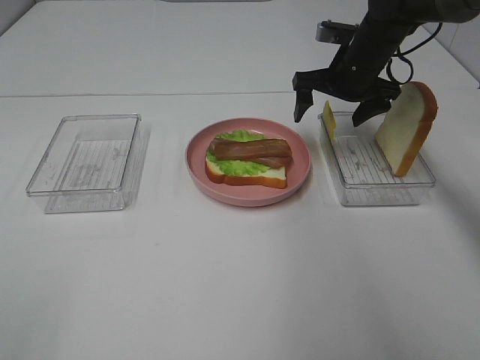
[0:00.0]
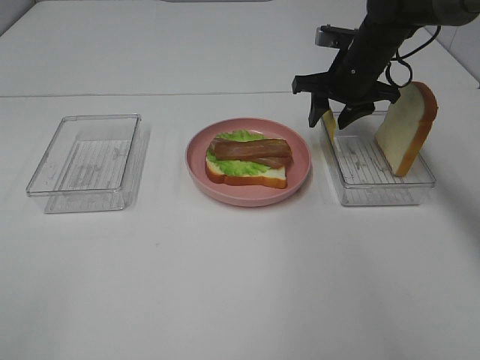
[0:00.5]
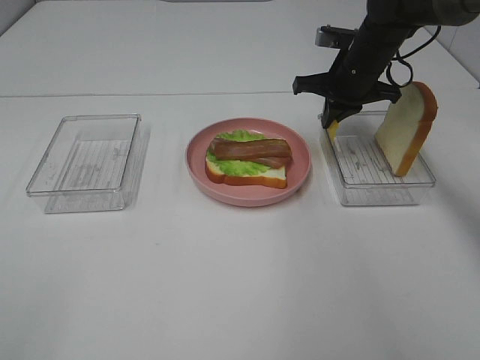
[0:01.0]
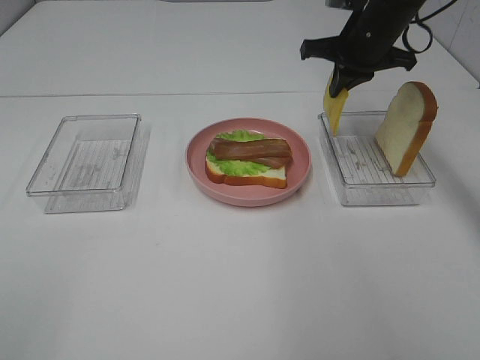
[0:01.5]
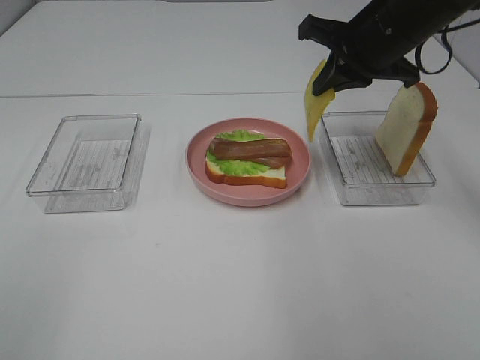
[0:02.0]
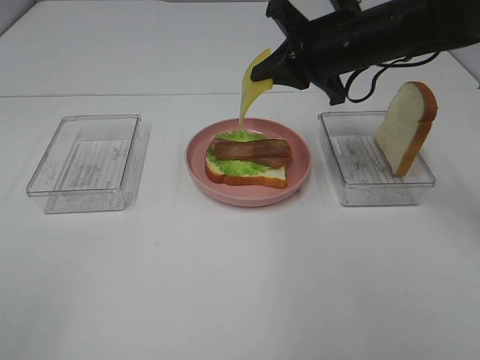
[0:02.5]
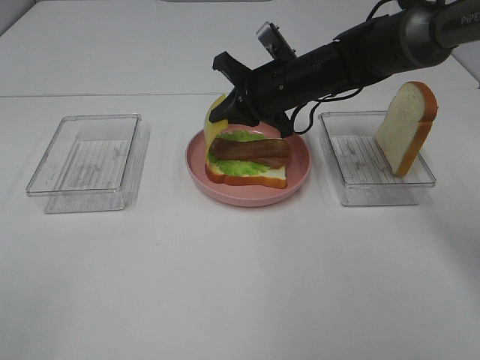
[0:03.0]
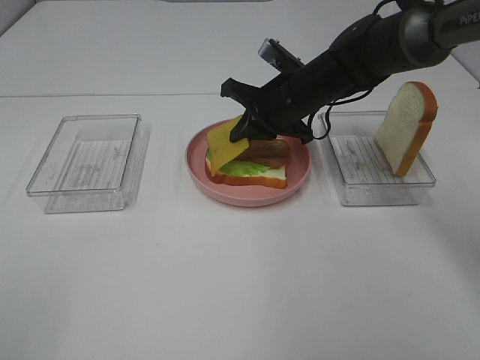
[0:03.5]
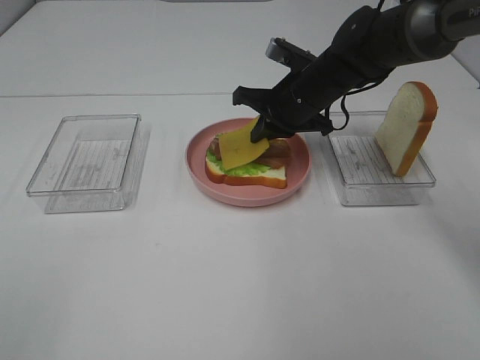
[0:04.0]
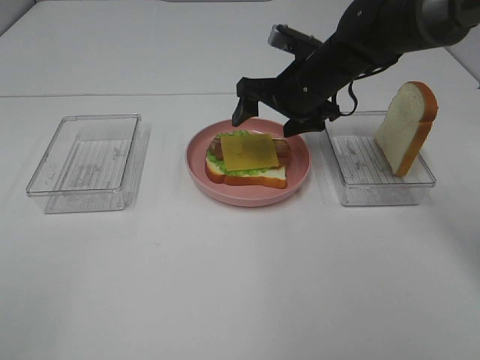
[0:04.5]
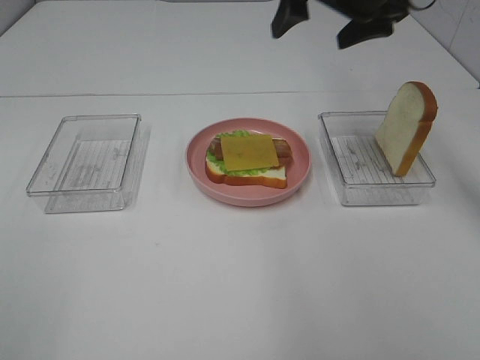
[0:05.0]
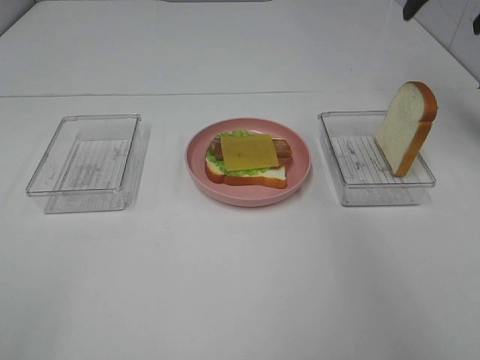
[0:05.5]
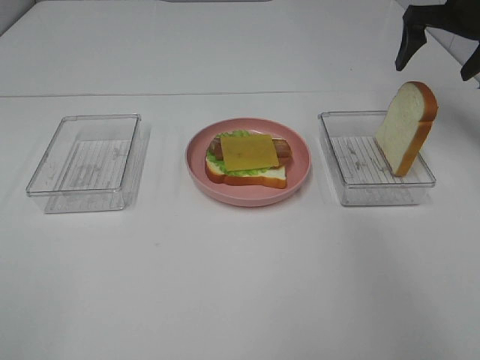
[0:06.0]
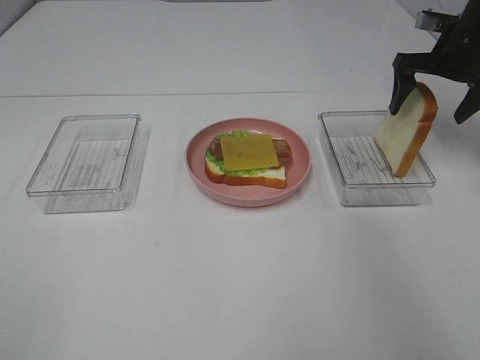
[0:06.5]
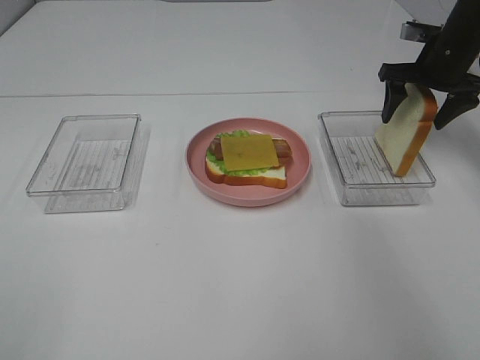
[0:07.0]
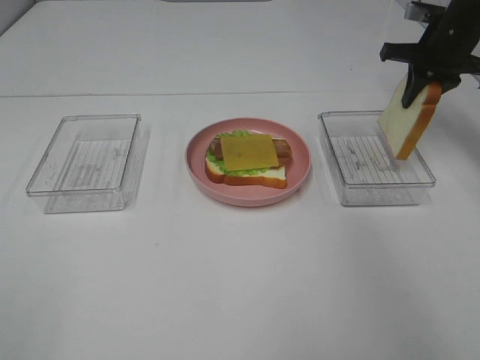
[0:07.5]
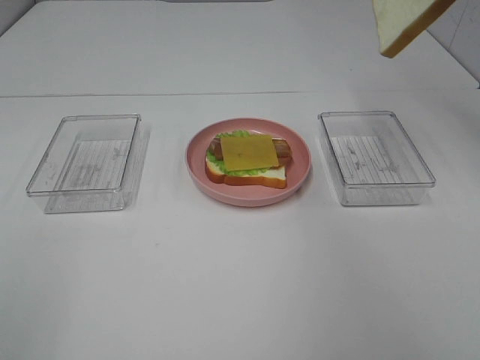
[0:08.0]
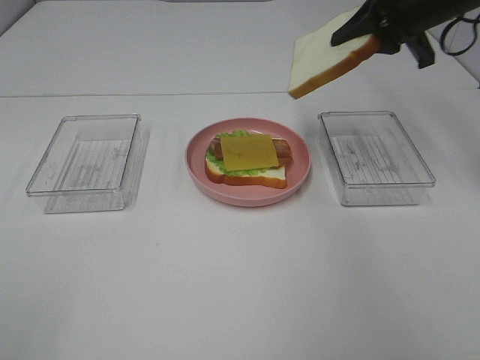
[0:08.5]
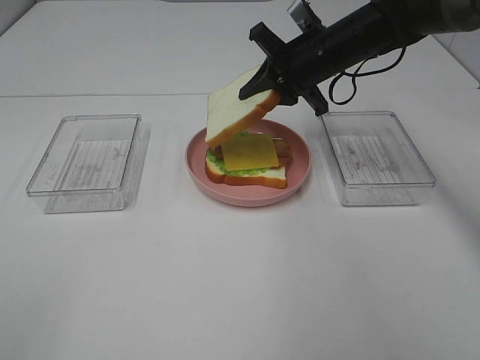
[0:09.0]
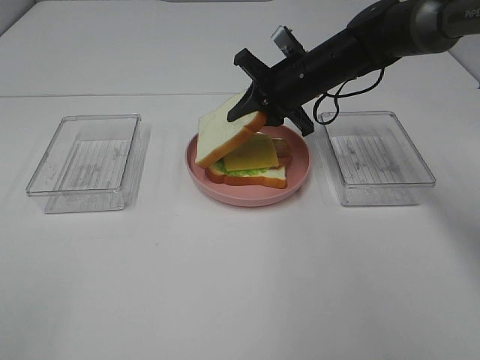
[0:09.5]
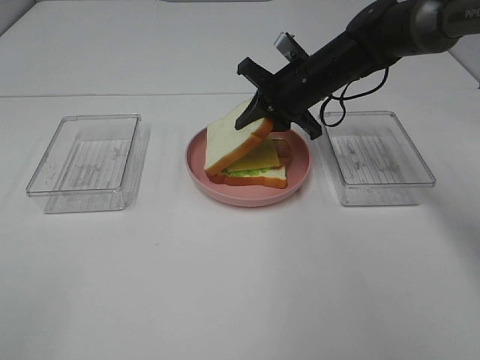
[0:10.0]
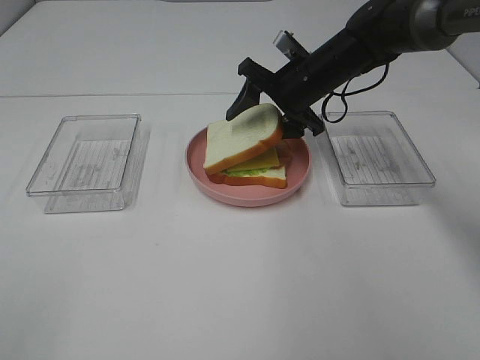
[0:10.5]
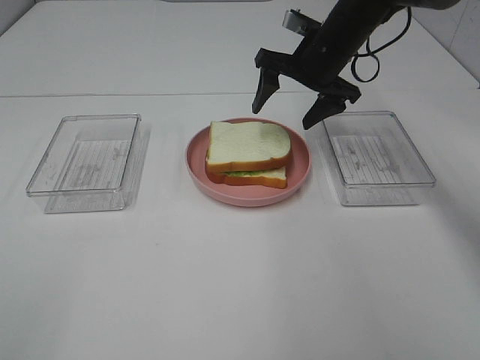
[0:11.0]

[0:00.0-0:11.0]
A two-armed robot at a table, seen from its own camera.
Task of the whole recording: Make sandwiches.
Step, 0:01.0 to 0:04.5: Right hand:place the cheese slice on top of the bacon.
Step, 0:05.0 to 0:07.0: Right hand:grab the bread slice.
0:00.0 to 0:02.0: The right gripper heads backward and upward, covering some 15 cm, and closes its fingers.
0:02.0 to 0:03.5: The right gripper shifts about 15 cm downward and to the left.
0:03.5 to 0:05.5: The right gripper travels to the right and upward by approximately 30 cm, and opens its fingers.
0:05.5 to 0:07.5: The right gripper goes about 10 cm downward, and closes its fingers.
0:07.5 to 0:09.0: The right gripper travels to the left by some 15 cm, and reaches some 15 cm upward, then returns.
0:09.0 to 0:11.0: The right gripper opens up.

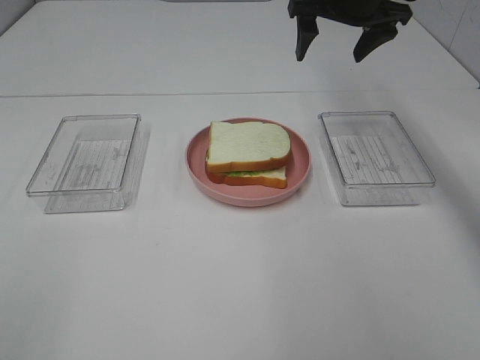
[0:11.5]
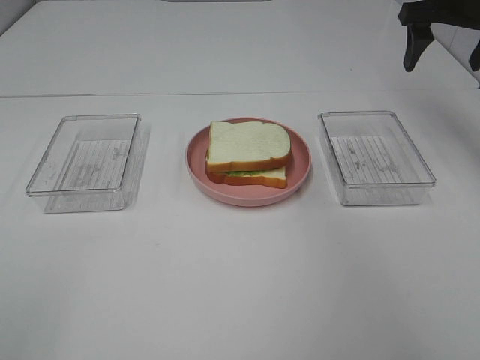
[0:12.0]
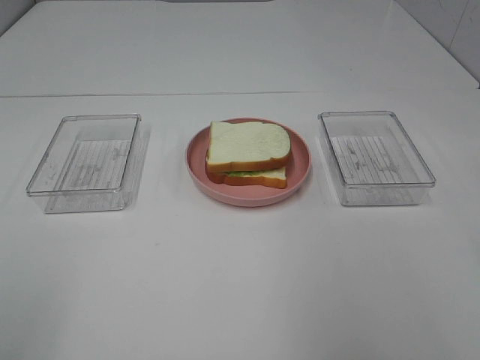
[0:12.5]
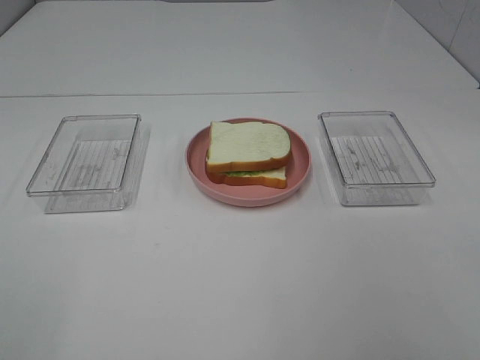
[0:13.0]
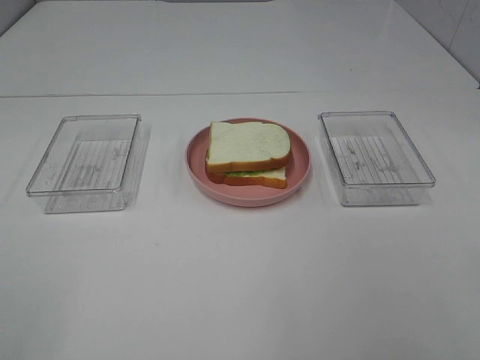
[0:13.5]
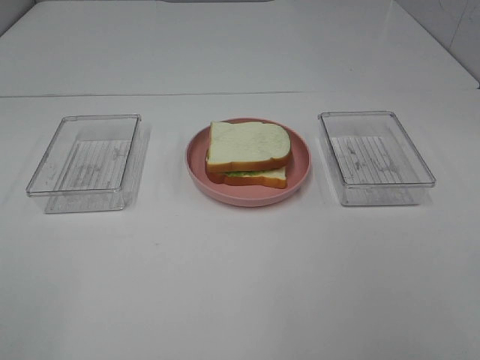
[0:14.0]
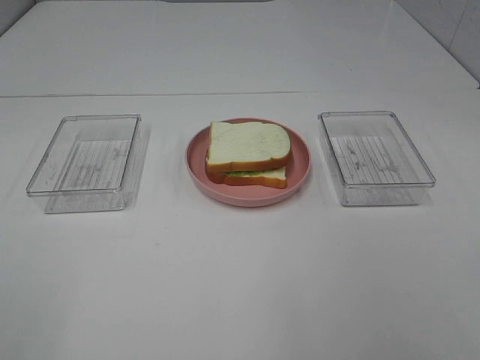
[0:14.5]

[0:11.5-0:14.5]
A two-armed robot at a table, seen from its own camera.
Task of the whole recording: Make sandwiches.
0:11.5 to 0:13.0: The right gripper moves backward, approximately 50 cm.

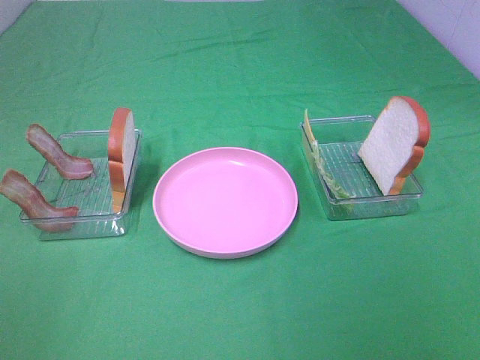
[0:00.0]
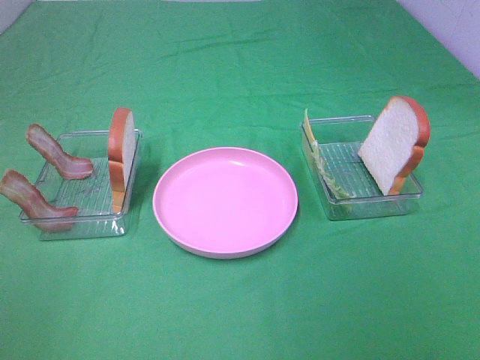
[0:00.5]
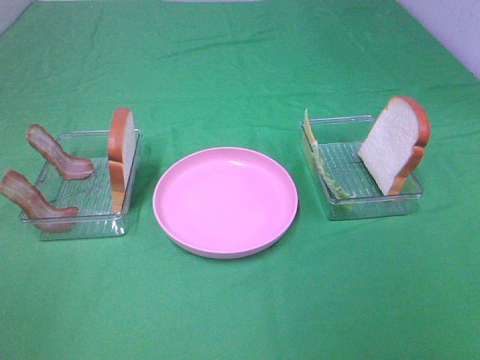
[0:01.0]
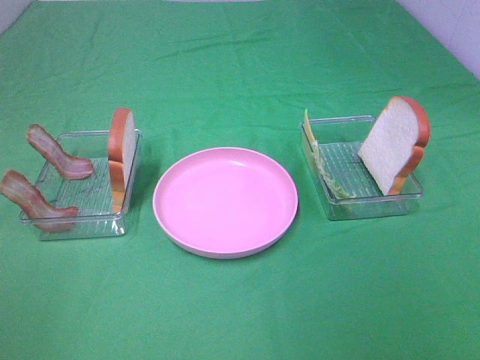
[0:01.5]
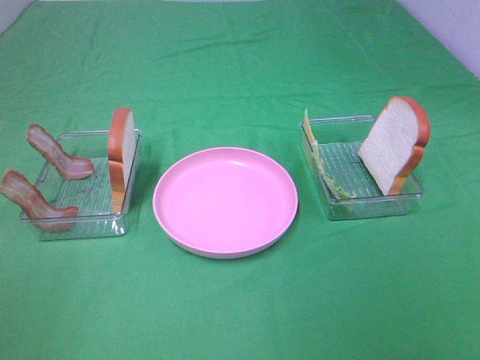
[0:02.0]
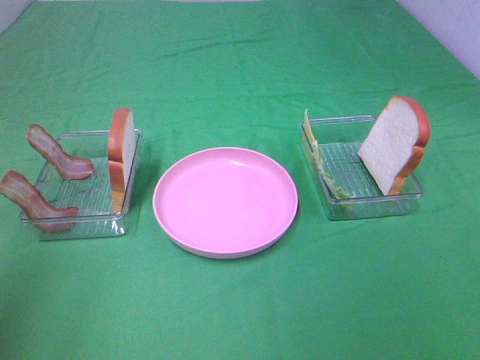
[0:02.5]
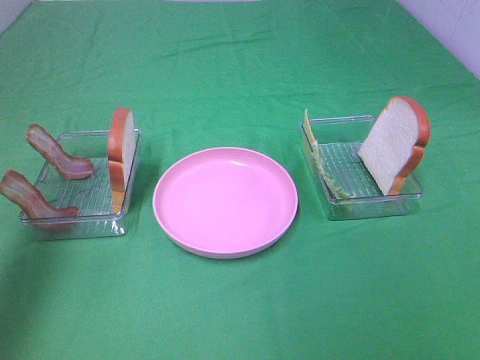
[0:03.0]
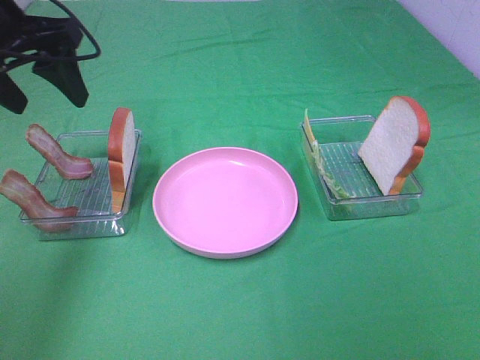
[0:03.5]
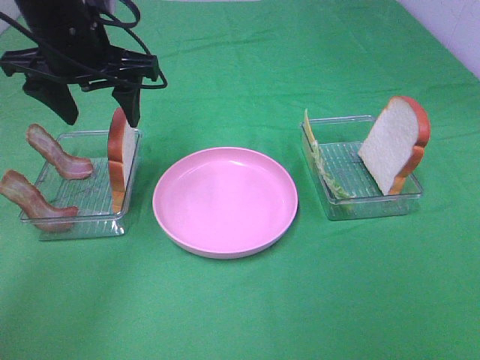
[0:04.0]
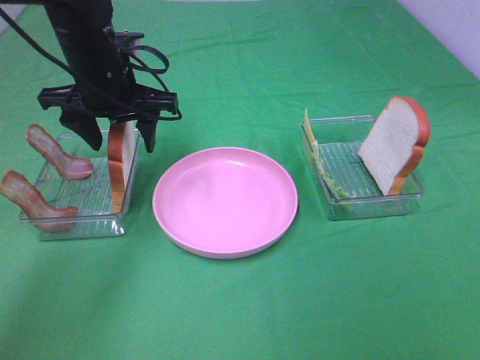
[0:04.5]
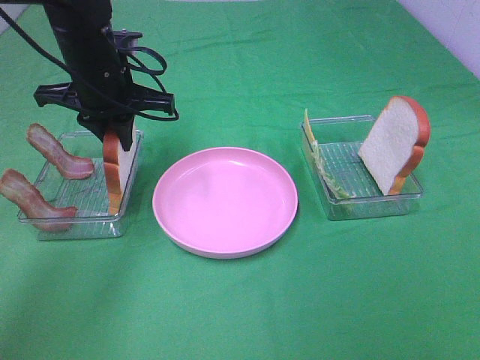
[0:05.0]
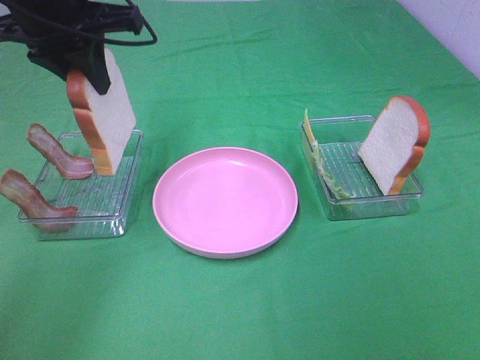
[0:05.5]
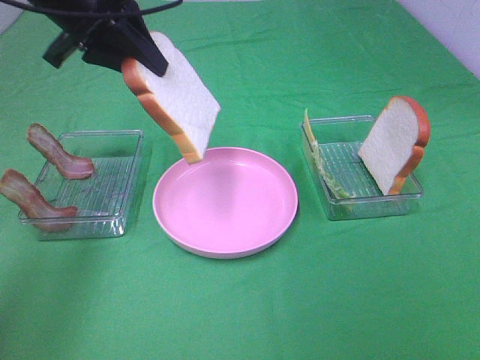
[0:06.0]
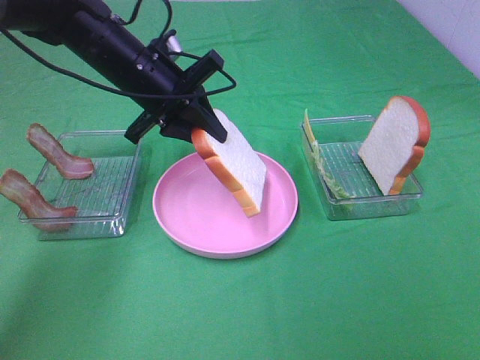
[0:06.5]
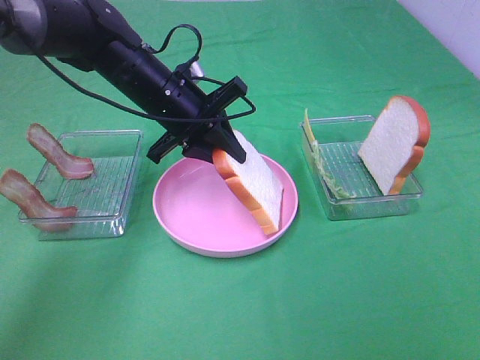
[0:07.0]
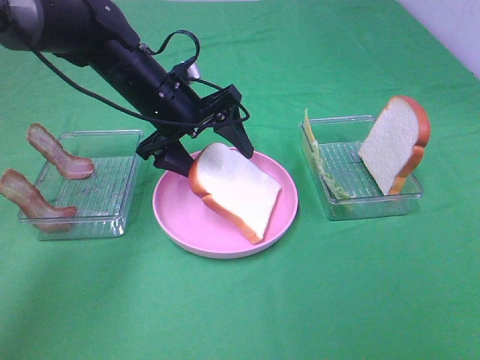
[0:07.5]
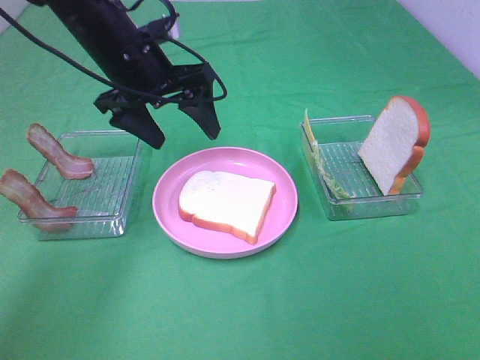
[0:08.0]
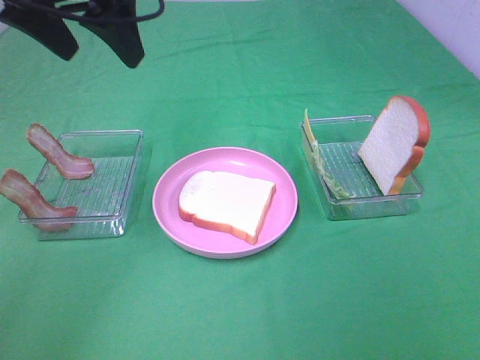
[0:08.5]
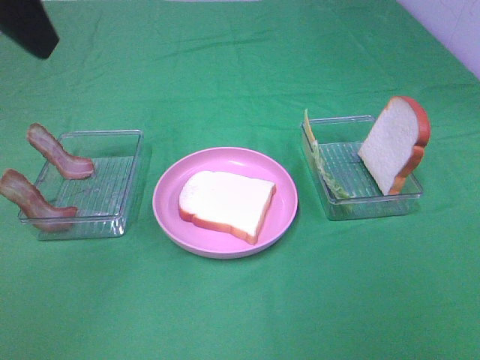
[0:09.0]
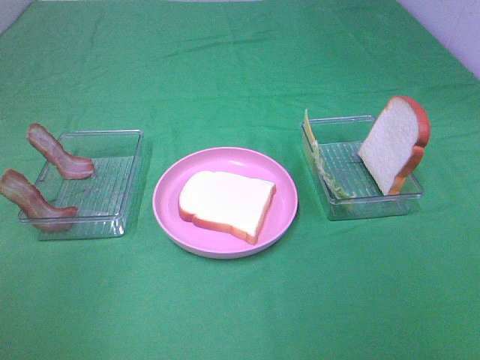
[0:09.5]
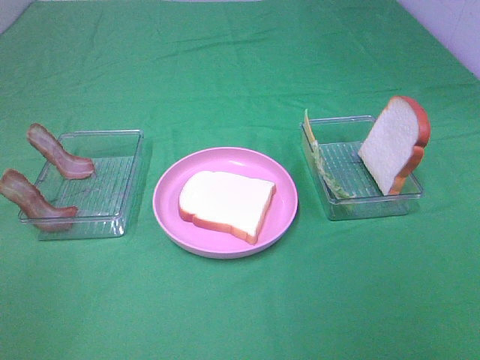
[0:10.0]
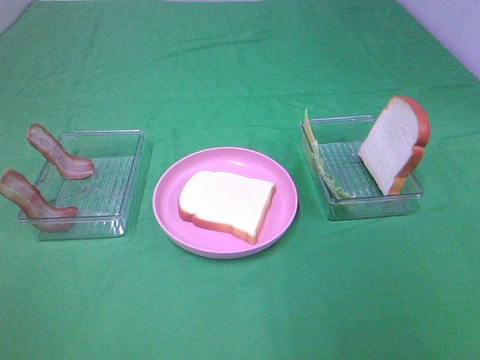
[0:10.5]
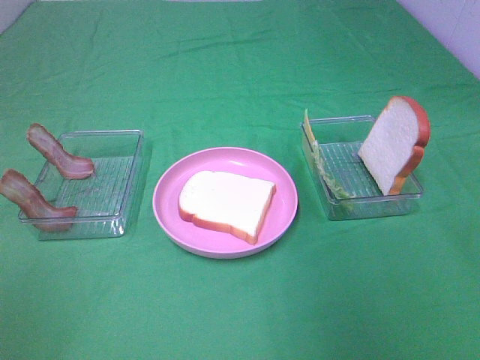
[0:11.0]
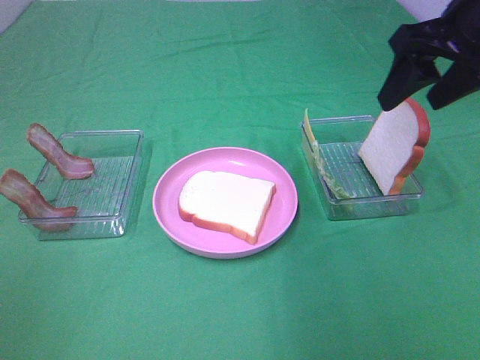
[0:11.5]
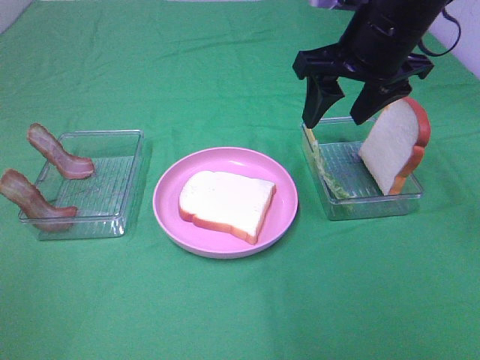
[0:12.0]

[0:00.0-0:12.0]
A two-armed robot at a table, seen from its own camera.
Task of the whole recording: Make sandwiches.
Step, 0:00.0 to 0:04.5: Left hand:grab the bread slice.
Step, 0:05.0 to 0:07.5: Left hand:place the bread slice on the plate.
0:02.0 to 0:04.0: The left gripper moves forward, about 40 cm.
0:04.0 to 0:06.0: The left gripper moves approximately 5 cm upward and comes back, and closes.
0:06.0 to 0:08.0: The left gripper goes about 5 cm downward, and opens.
0:08.0 to 0:10.0: The left gripper travels backward and to the left by roughly 40 cm.
0:10.0 to 0:12.0: The right gripper goes approximately 35 cm forward.
